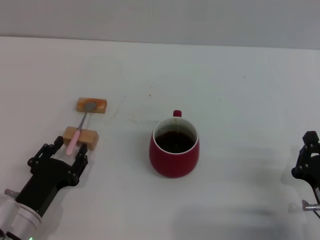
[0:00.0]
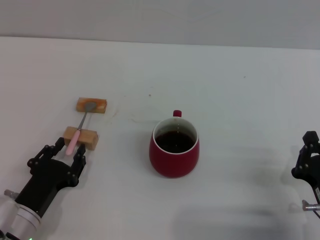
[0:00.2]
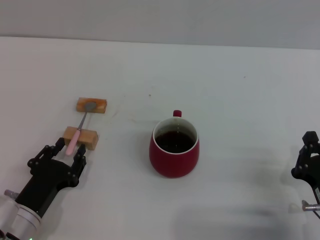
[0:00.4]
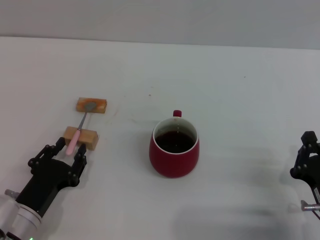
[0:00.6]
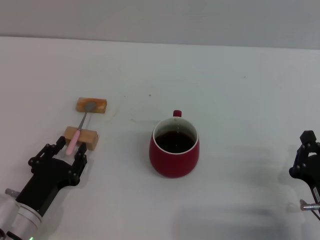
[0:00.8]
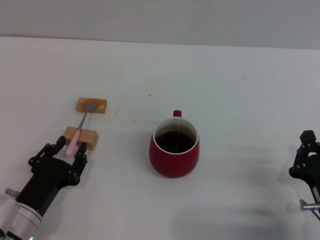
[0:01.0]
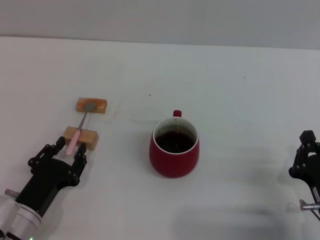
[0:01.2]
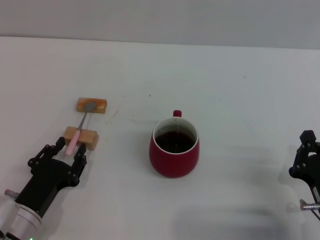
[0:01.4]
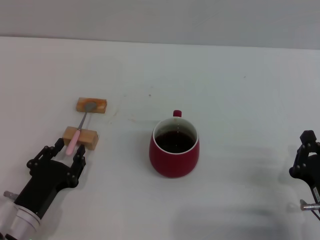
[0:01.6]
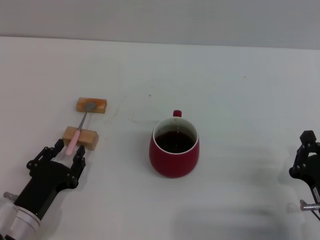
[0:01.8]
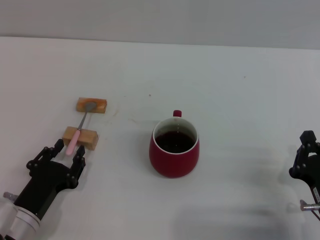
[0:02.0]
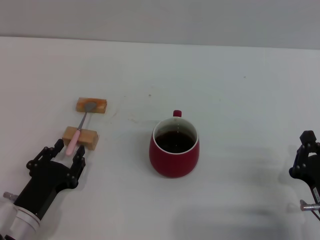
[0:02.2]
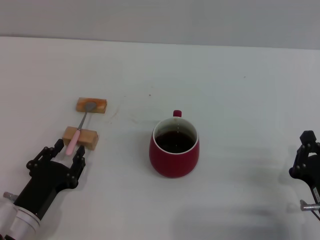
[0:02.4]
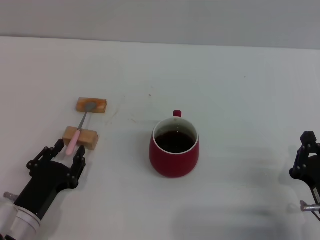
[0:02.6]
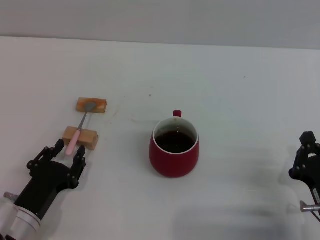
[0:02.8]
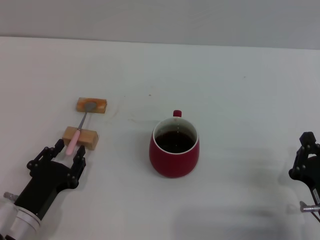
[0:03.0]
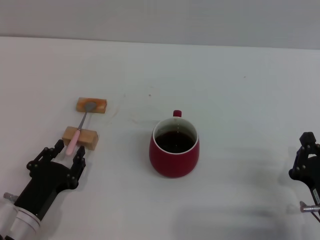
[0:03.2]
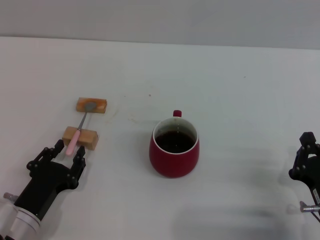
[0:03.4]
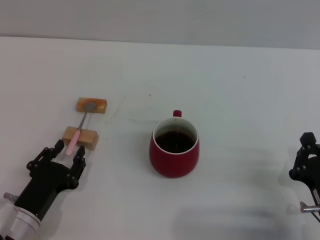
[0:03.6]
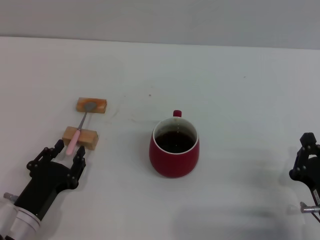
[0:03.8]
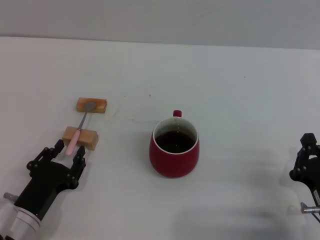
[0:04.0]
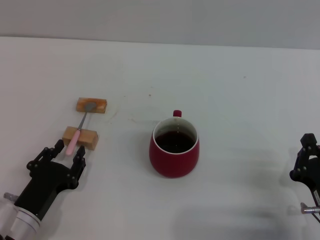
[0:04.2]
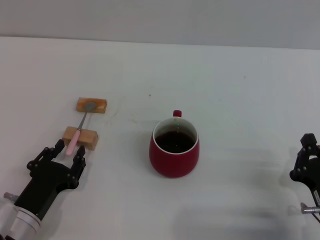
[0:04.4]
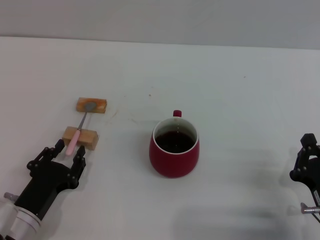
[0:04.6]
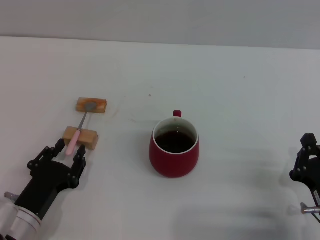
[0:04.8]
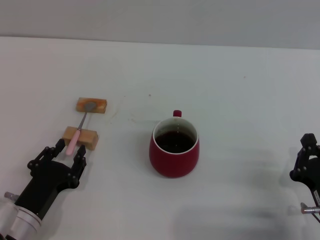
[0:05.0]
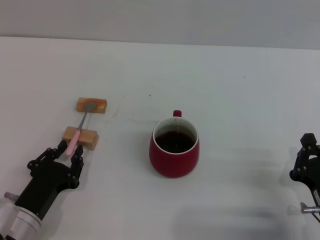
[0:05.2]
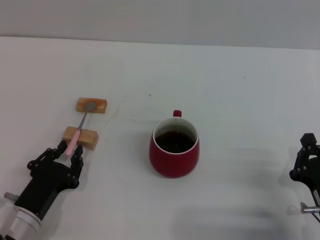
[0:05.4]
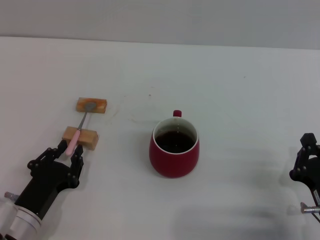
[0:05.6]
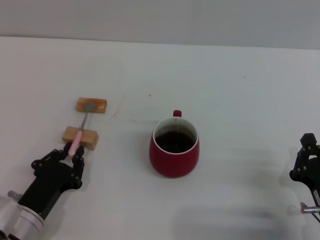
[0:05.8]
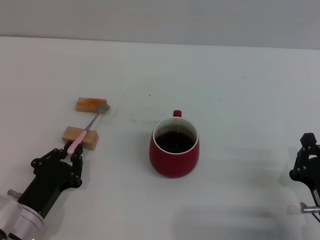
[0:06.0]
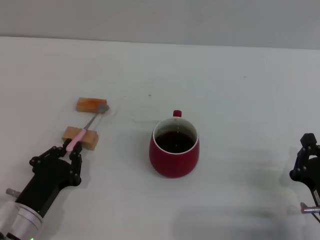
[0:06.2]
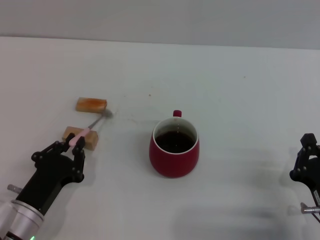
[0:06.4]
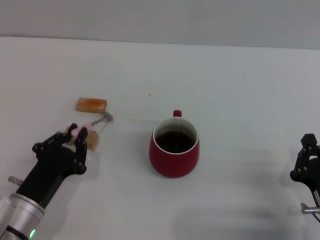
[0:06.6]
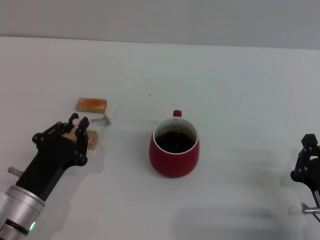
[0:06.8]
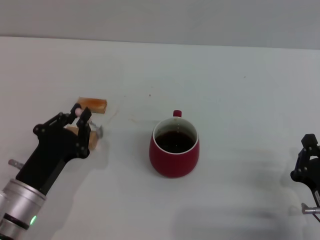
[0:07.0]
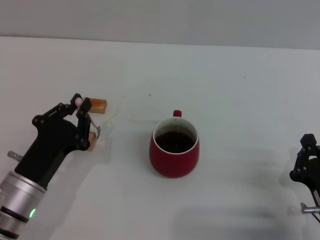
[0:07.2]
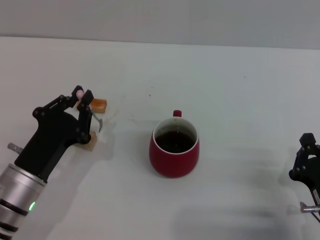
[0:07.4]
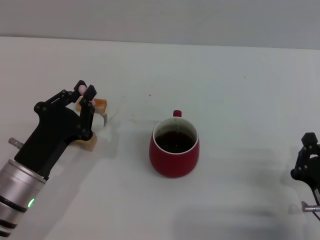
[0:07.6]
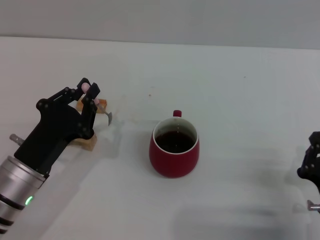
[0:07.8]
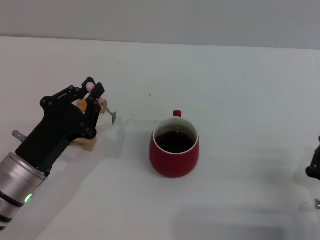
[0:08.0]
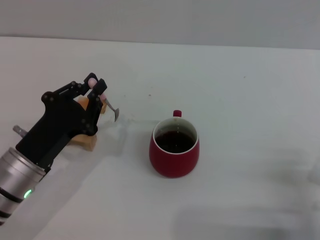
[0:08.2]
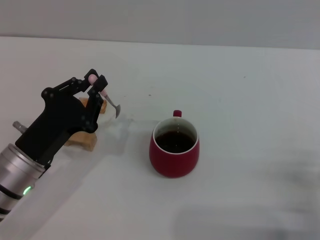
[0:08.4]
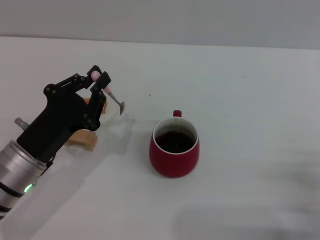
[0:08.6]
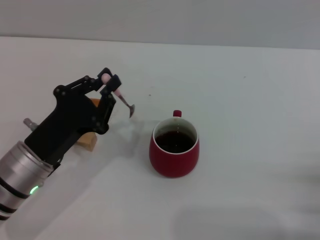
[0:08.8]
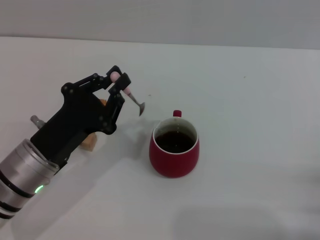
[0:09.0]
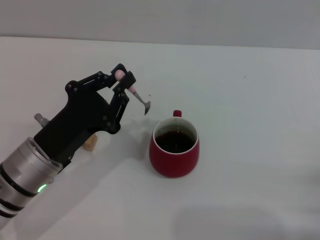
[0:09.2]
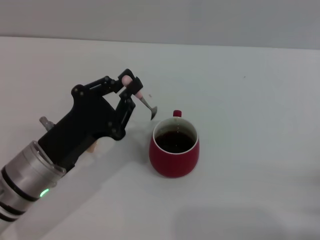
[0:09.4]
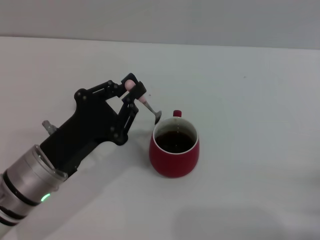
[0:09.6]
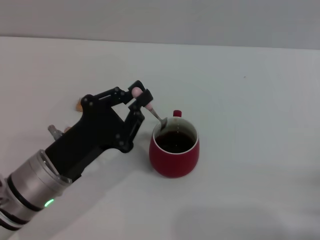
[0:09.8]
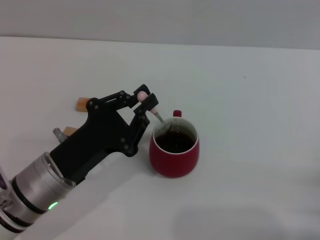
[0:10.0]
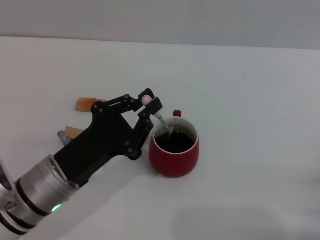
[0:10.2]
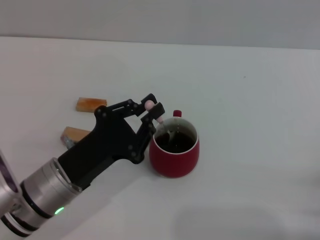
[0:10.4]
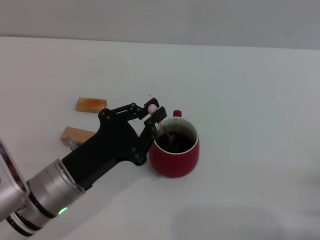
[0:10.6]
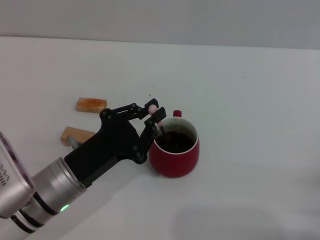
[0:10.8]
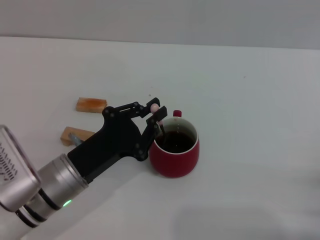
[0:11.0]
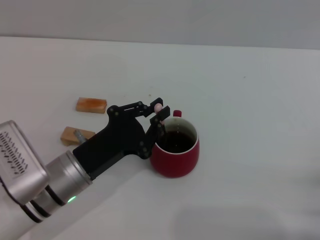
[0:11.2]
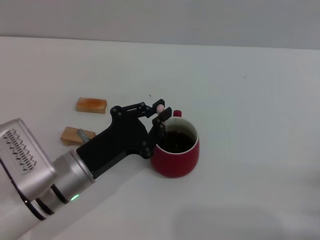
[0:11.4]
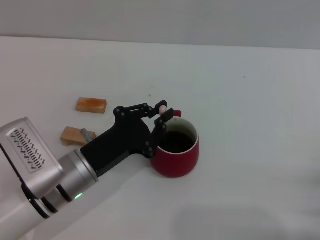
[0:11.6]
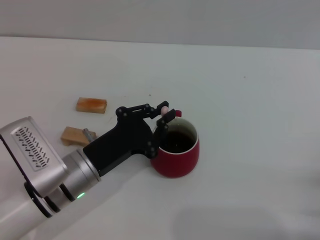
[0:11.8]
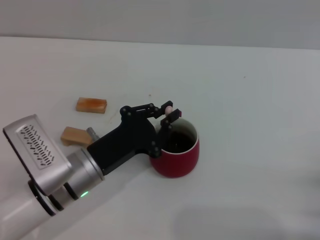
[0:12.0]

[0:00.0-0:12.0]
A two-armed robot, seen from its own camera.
Task of the whole recording: Move the red cup to the center, lift the pink spoon, stir it three times in the cup, and put the spoon into the cup.
Step, 0:00.0 to 0:07.8: Pick up the spoon with the left gripper.
0:00.0 to 0:06.0: Neither gripper changes place.
0:06.0 to 0:07.6: The left gripper moves upward, some 5 cm.
0:07.6 to 0:09.0: The right gripper goes approximately 5 cm to the right.
0:09.0 to 0:12.0: There are only small adjustments of the grippers.

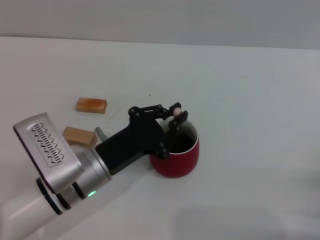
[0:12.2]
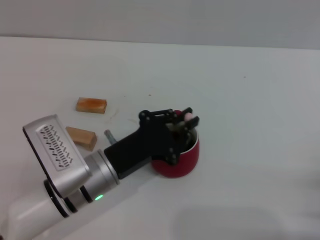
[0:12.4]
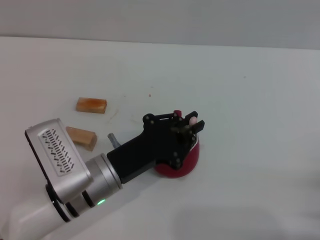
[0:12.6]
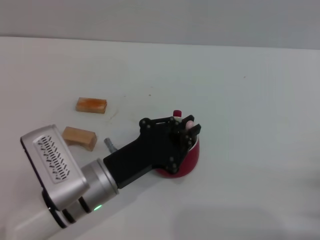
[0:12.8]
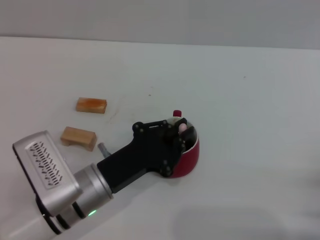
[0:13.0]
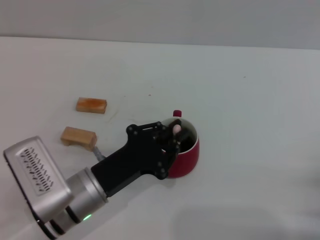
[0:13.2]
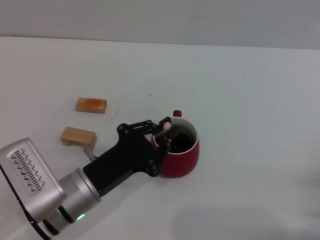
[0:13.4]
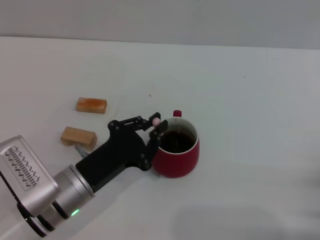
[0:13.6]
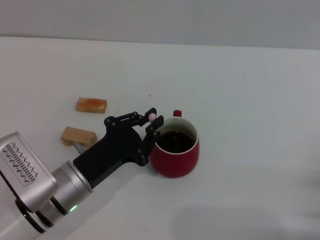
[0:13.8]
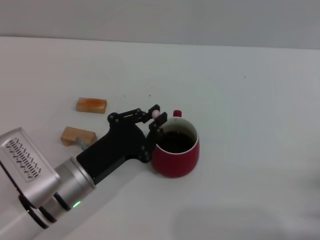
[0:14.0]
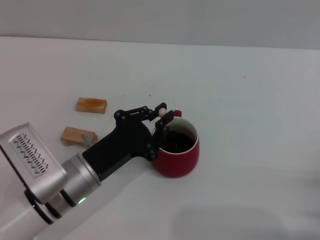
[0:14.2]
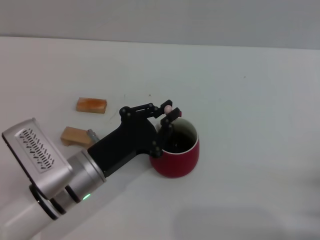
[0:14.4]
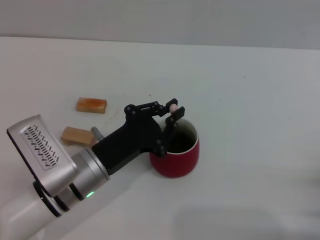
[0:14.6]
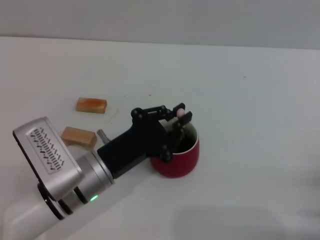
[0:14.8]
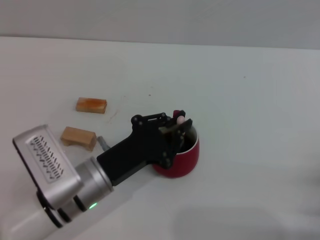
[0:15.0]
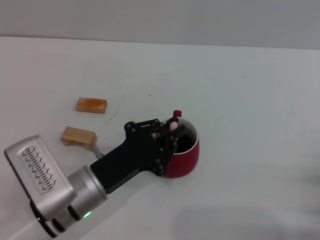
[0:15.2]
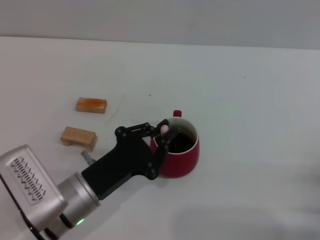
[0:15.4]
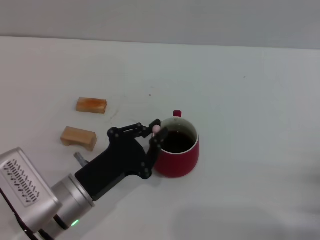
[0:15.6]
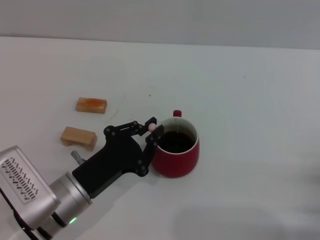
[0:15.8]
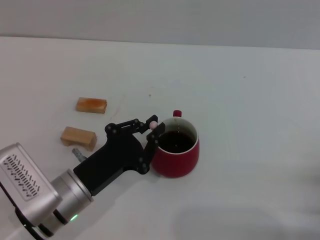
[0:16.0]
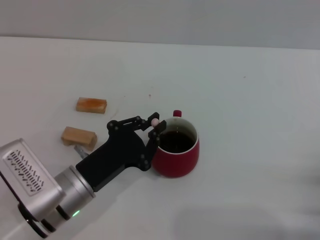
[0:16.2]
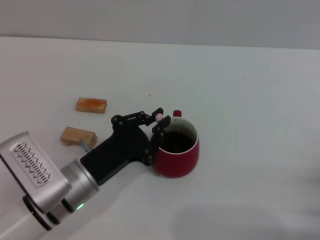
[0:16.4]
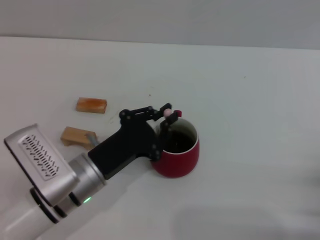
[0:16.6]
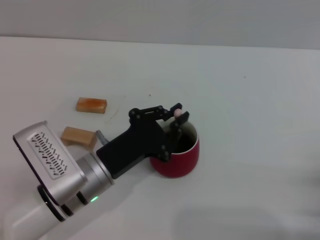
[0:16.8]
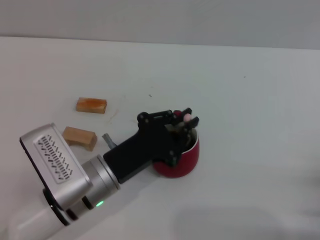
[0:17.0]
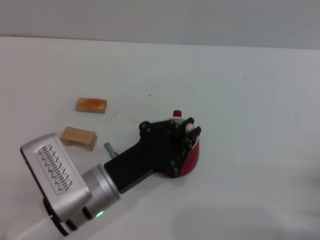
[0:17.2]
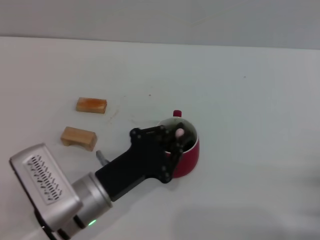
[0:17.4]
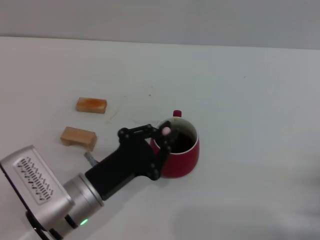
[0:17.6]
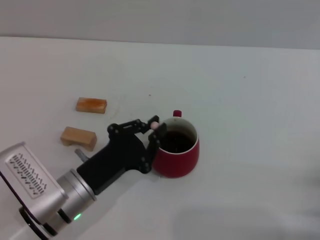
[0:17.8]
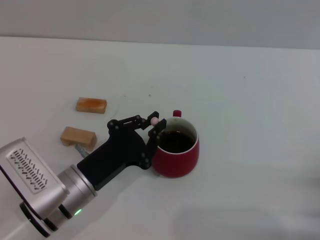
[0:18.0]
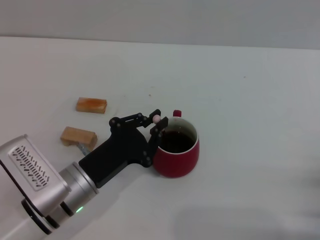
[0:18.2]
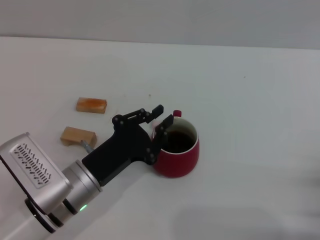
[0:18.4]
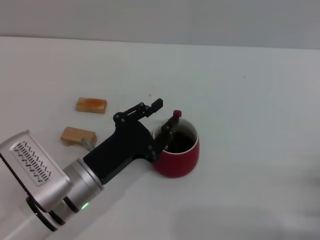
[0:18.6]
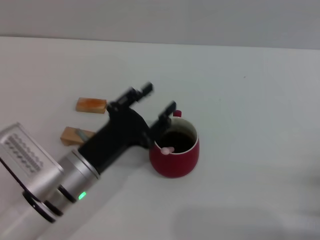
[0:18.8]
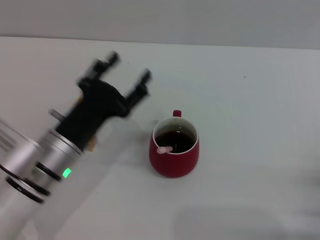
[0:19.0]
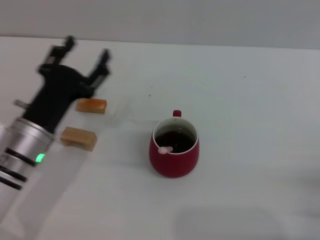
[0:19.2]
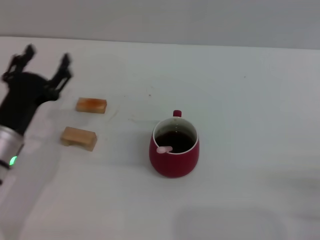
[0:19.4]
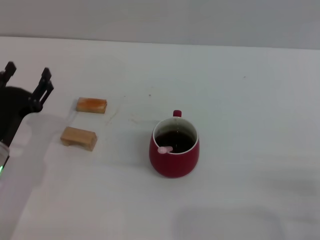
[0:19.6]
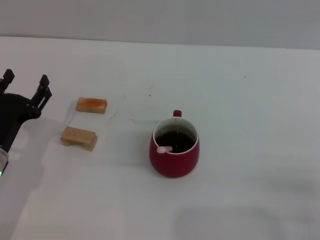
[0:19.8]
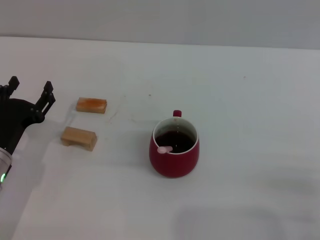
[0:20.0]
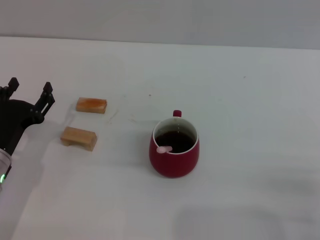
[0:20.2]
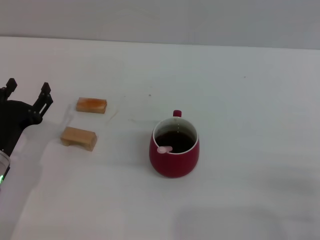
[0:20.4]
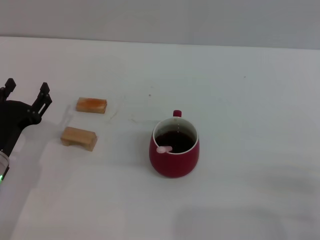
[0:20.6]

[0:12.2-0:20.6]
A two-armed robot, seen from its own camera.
Task of the whole recording: Move the red cup to the center, lift the pink spoon, stir it three times in the cup, and put the spoon into the cup.
Step, 0:12.2 to 0:18.8: Stir the coffee in the cup with the left gripper.
0:12.2 to 0:17.8: There are only small adjustments of the grippers.
0:17.8 to 0:19.2: The left gripper moves forward, approximately 5 cm, and opens its fingers.
0:19.2 to 0:20.6: The left gripper shifts about 5 cm to the left.

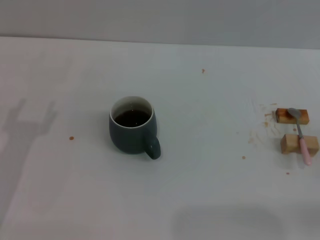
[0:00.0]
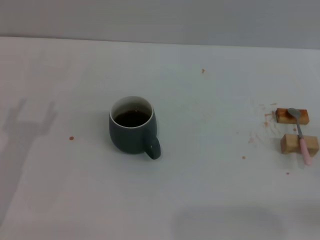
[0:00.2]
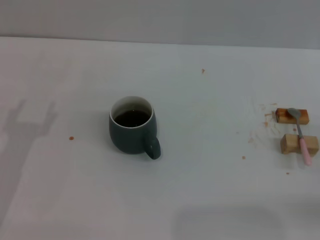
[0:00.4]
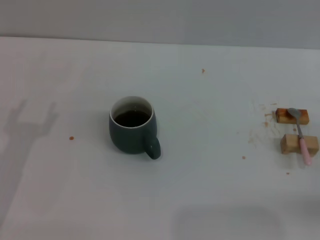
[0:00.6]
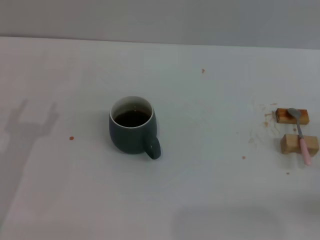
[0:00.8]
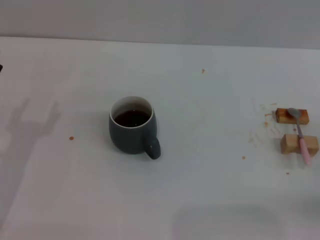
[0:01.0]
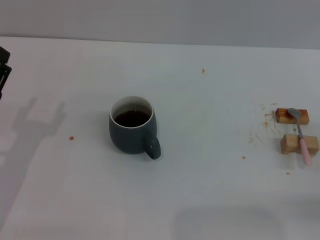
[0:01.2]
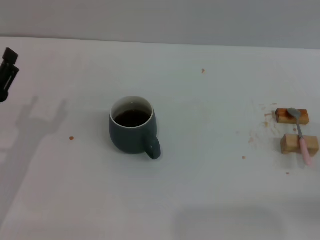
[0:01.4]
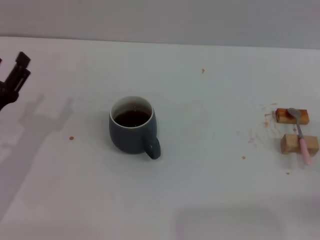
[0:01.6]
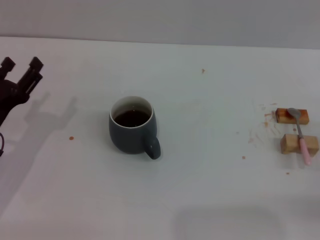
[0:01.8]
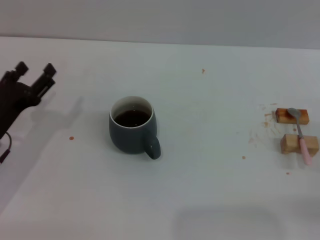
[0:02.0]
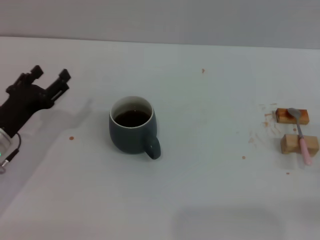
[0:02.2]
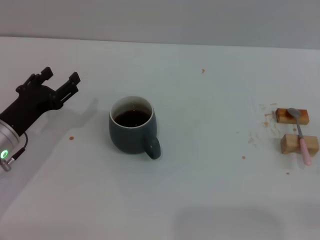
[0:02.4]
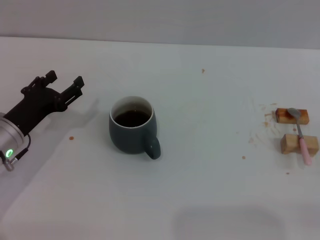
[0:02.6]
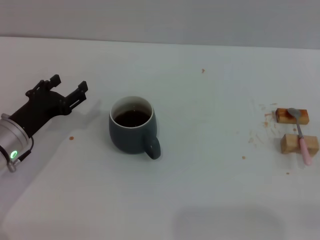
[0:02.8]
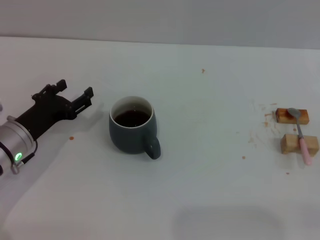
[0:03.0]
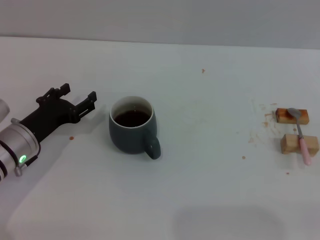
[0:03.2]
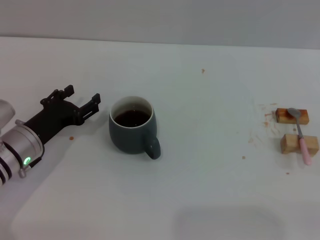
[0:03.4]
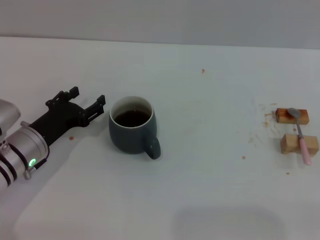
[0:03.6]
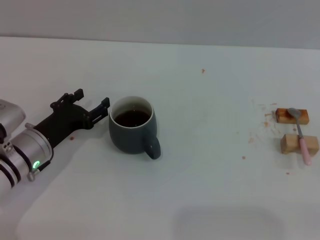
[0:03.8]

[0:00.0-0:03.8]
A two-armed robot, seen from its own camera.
Task of the whole recording: Move the grey cup to the center, lift the pink spoon, stir it three times in the cup, and put the spoon into the cup.
0:01.2 to 0:02.6: The left gripper shifts roughly 5 cm forward.
0:02.6 to 0:03.8: The grippers move only a little.
